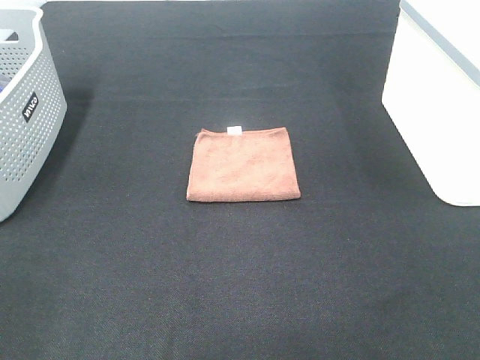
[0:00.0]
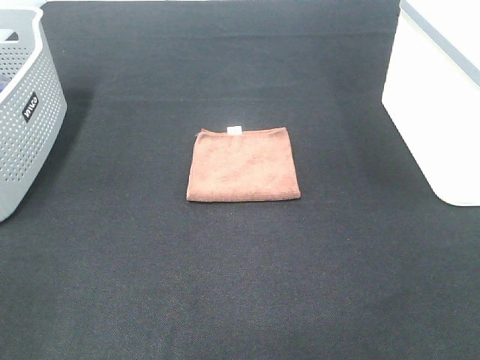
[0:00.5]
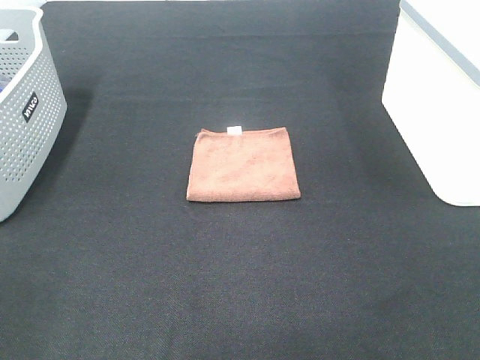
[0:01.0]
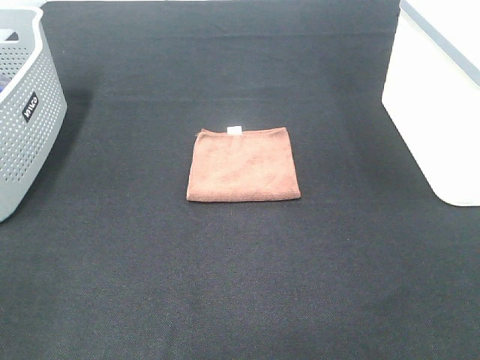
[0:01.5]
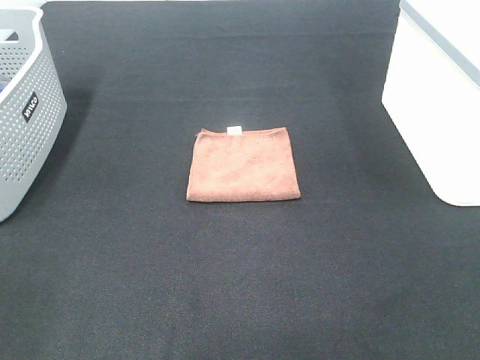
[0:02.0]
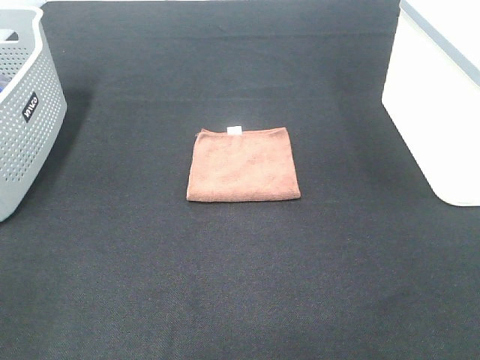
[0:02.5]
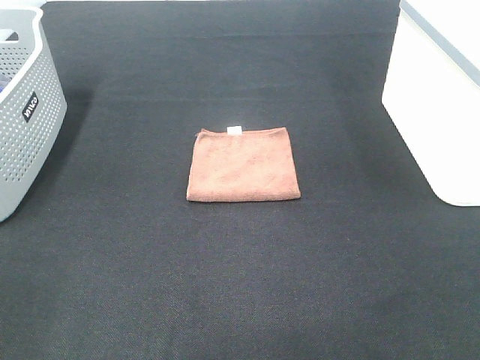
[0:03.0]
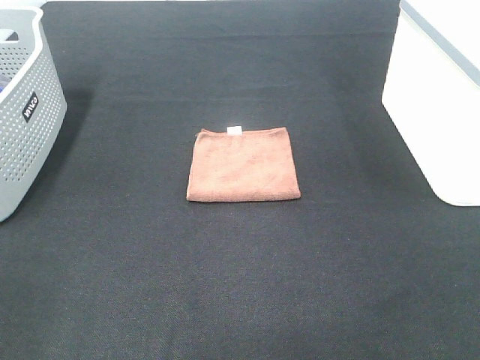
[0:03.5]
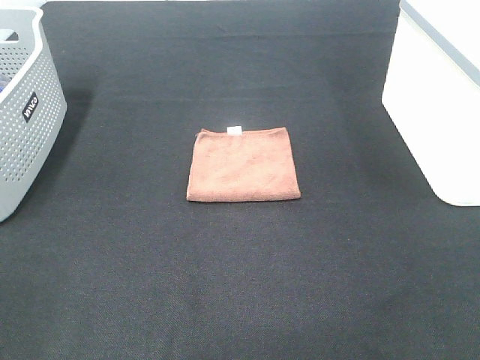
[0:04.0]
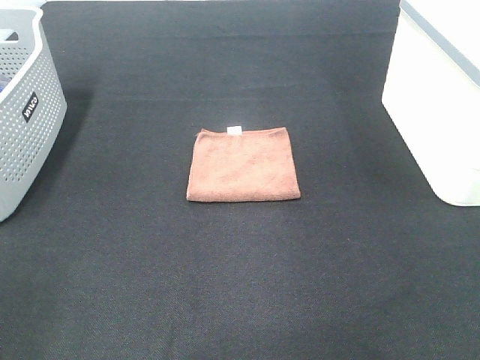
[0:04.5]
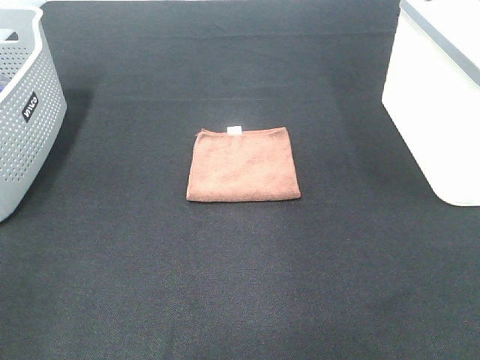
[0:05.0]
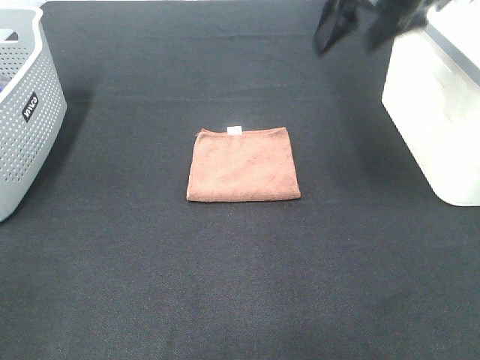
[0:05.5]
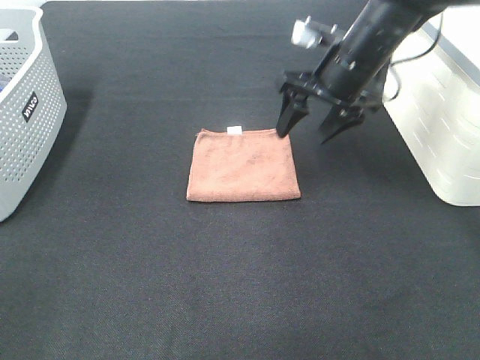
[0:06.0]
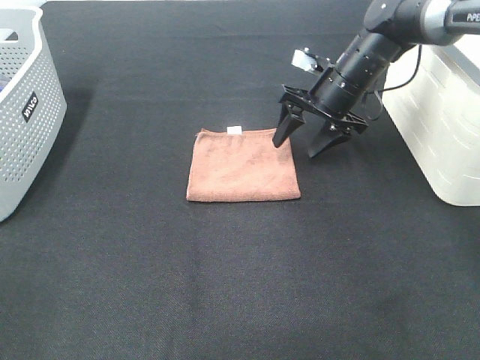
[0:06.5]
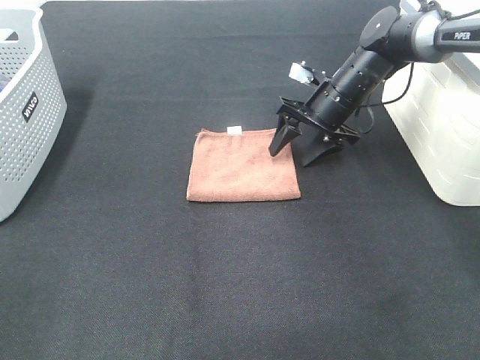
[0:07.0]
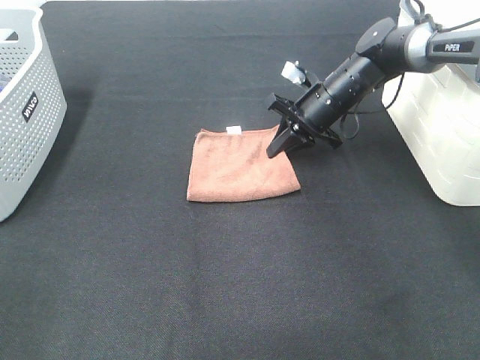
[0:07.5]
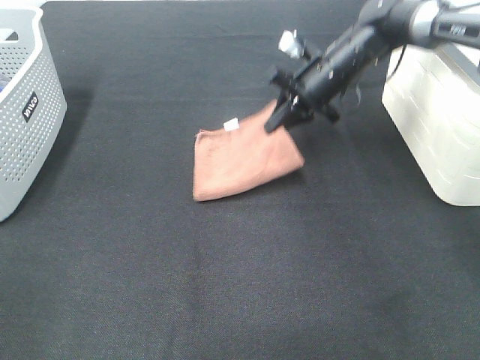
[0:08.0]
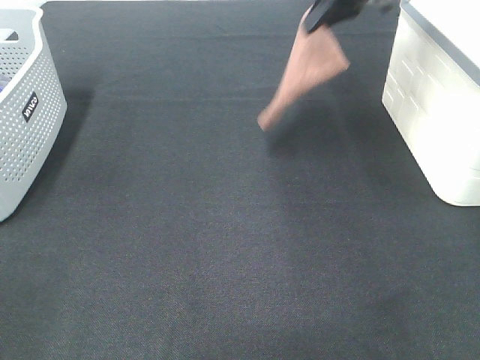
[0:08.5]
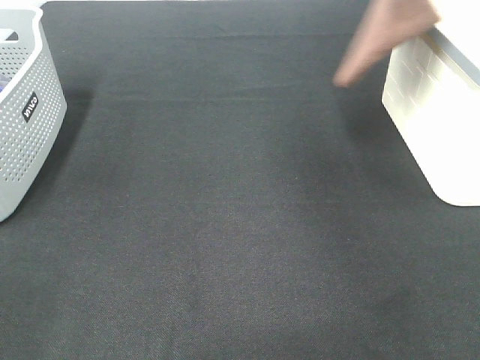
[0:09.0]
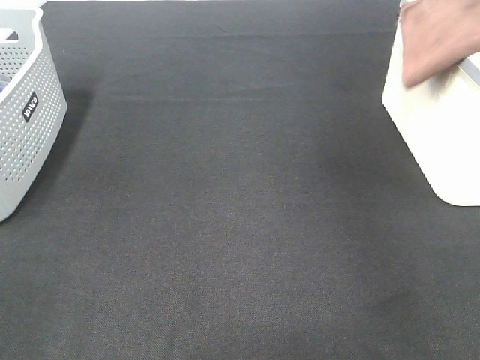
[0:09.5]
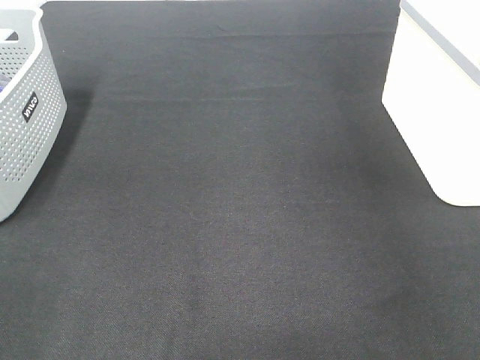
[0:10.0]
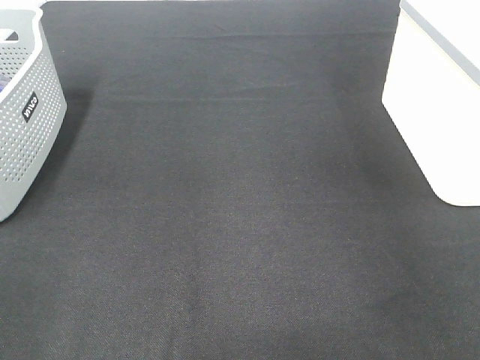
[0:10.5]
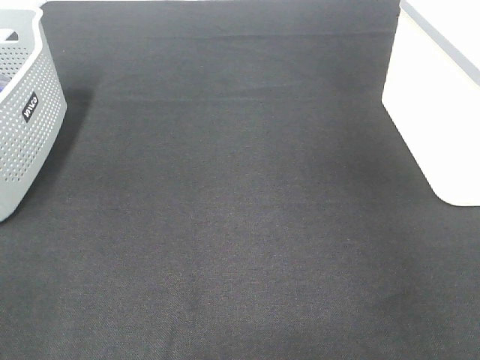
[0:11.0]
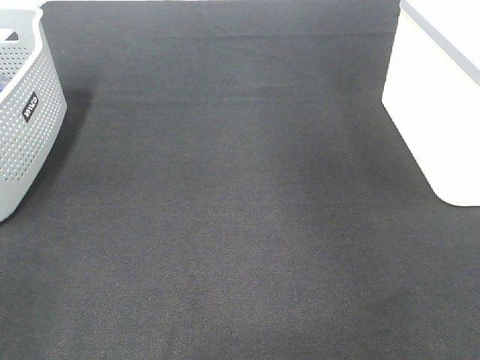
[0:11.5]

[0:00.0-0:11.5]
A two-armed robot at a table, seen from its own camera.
Step, 0:00.0 to 0:07.5: Right hand: grab the folded brown towel.
Step, 0:08.0 to 0:10.5: Right hand: place the brown towel in right basket.
0:00.0 to 0:02.0: Both grippers stay about where they are.
0:04.0 to 0:06.0: The right gripper moves forward, some 40 cm.
0:06.0 to 0:07.5: The right gripper is displaced downward and forward by some 10 cm, and closes its fingers.
0:07.5 to 0:09.5: The right gripper moves upward and to the right, some 35 cm.
0:09.5 to 0:11.5: The right gripper heads backward and upward, covering about 10 cm, and opens up.

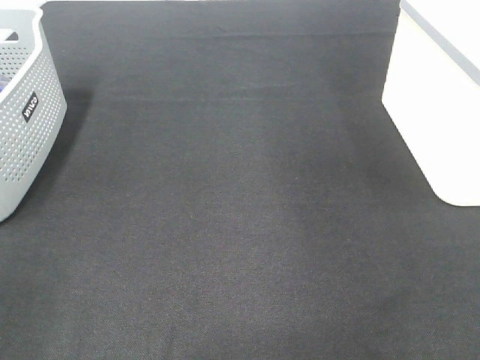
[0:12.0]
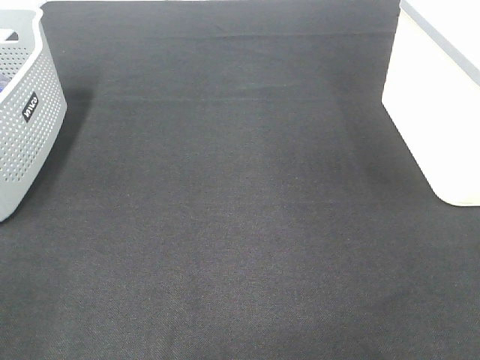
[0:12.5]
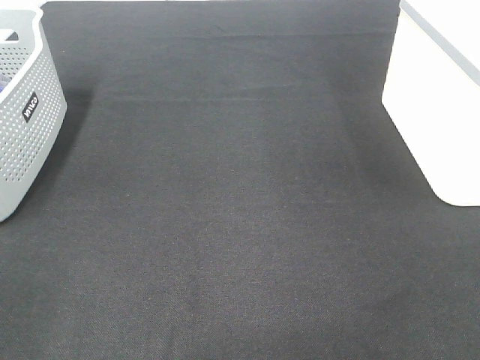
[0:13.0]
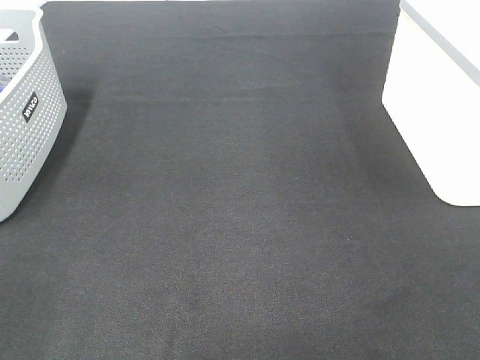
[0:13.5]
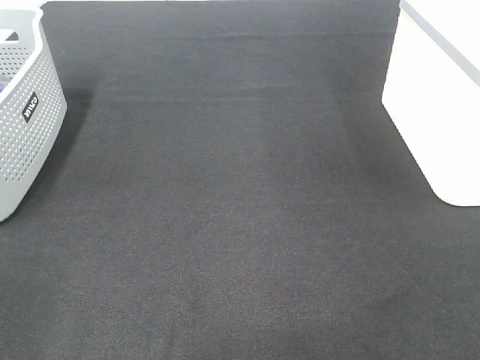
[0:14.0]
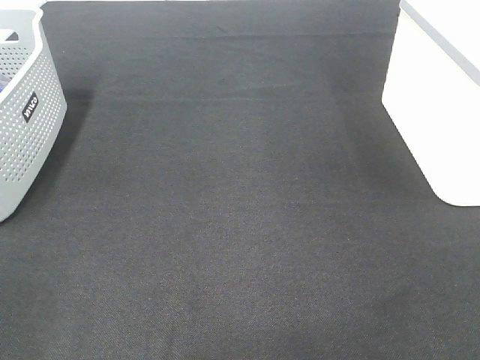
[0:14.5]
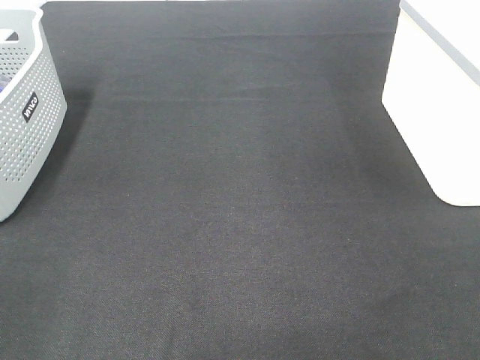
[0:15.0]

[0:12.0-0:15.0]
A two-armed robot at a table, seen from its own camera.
0:13.5 to 0:15.0: The two grippers keep their place.

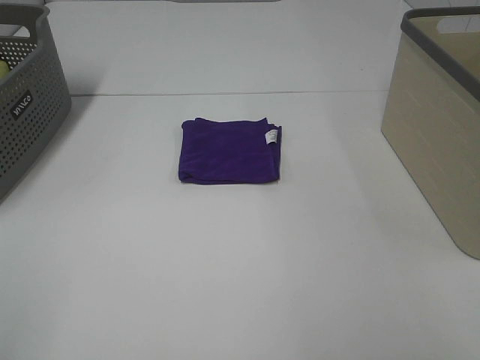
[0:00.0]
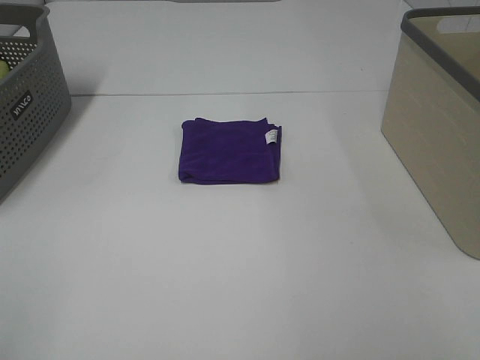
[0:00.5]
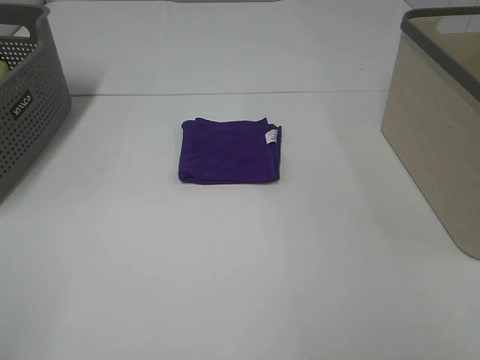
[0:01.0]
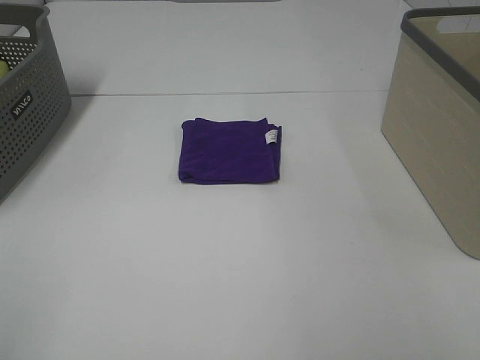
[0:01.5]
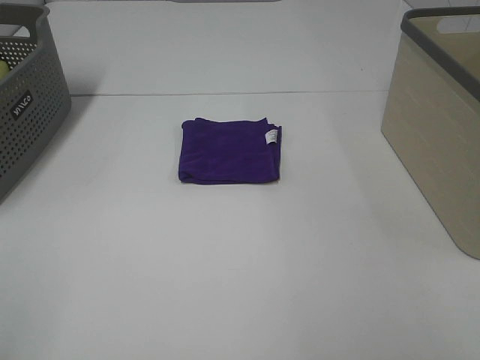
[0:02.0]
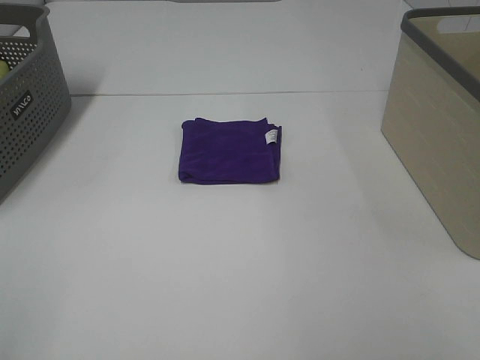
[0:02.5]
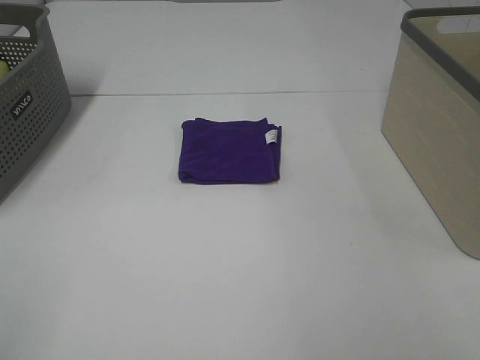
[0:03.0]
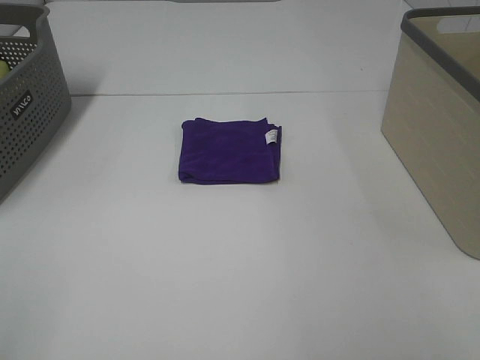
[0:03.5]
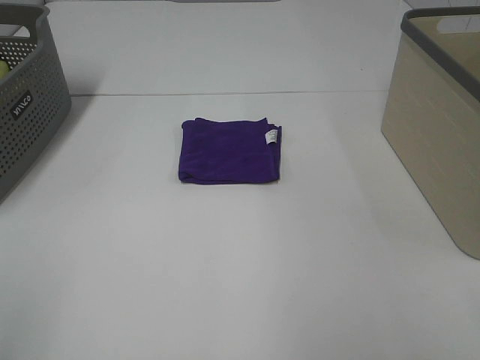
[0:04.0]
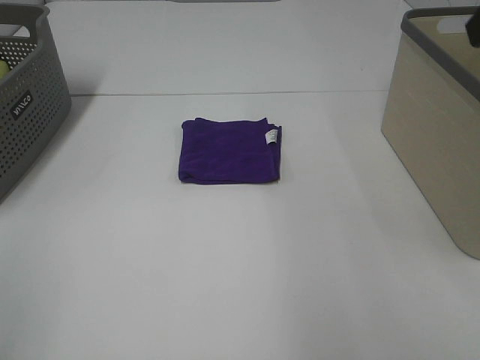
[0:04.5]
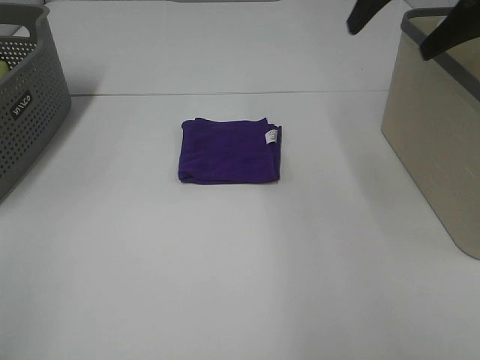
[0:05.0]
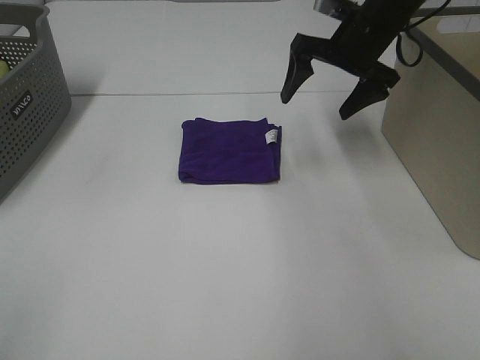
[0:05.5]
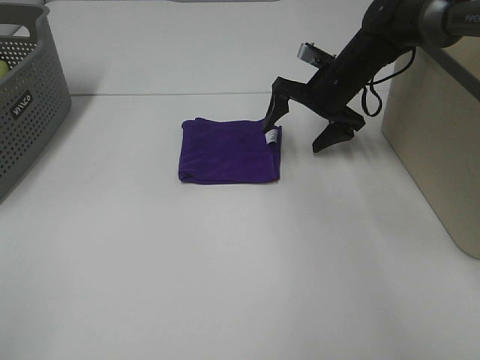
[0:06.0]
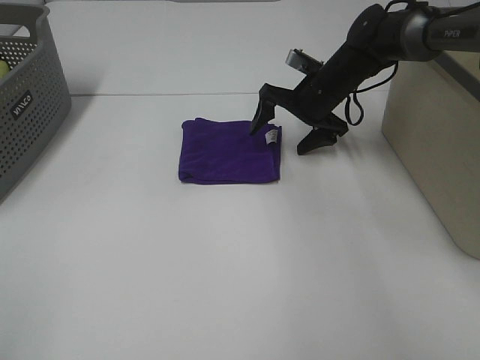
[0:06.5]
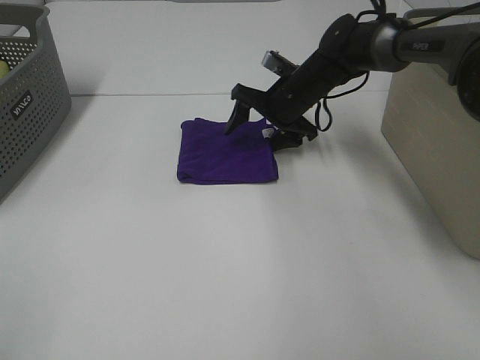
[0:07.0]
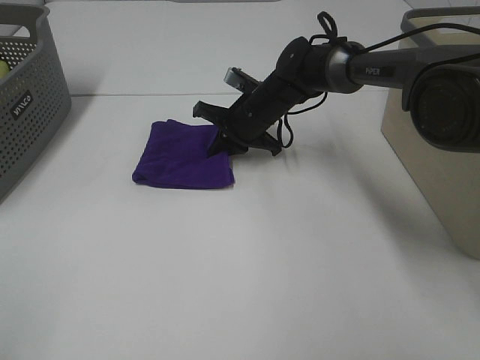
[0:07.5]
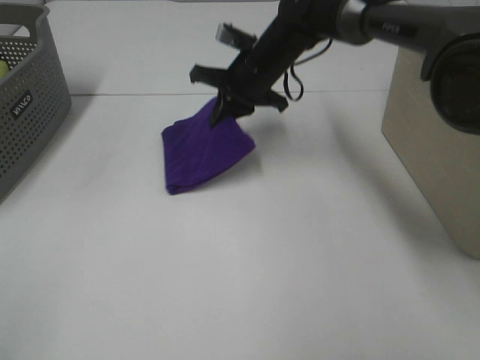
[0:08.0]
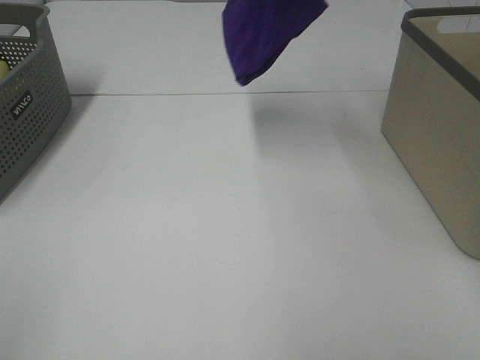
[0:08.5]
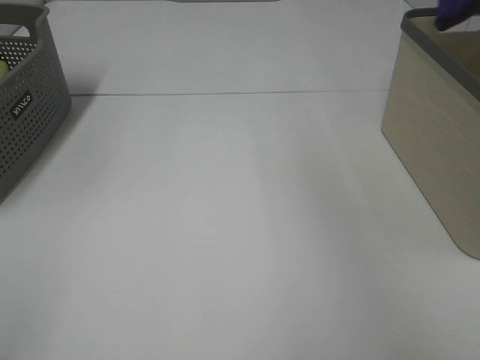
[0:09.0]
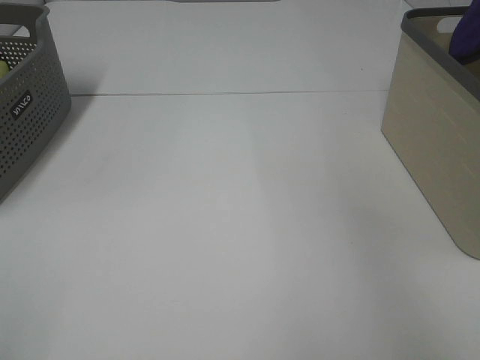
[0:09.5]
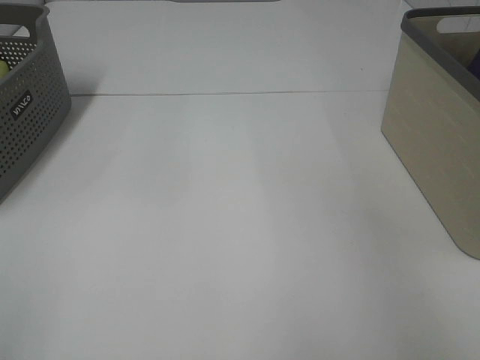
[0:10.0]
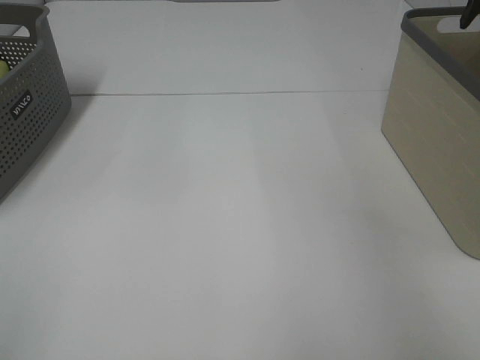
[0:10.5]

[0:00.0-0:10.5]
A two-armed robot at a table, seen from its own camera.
Step, 0:00.0 to 0:07.5: Right hand: grab the folded purple towel.
Step, 0:08.0 to 0:10.0: Right hand: place the purple towel in right basket.
0:00.0 to 0:02.0: Neither gripper changes place.
0:04.0 to 0:06.5: The right gripper moves forward and downward, about 50 cm.
0:06.5 to 0:08.5: The right gripper travels upward by roughly 25 cm, and closes.
0:08.5 to 0:10.5: The right gripper is displaced to the right by approximately 25 cm, and opens.

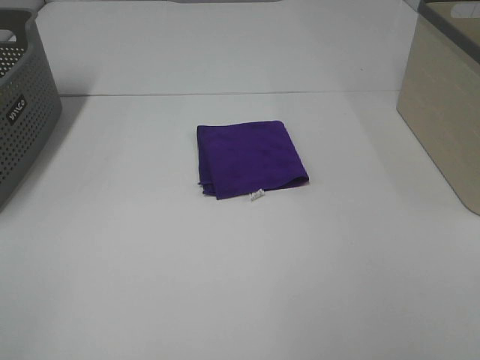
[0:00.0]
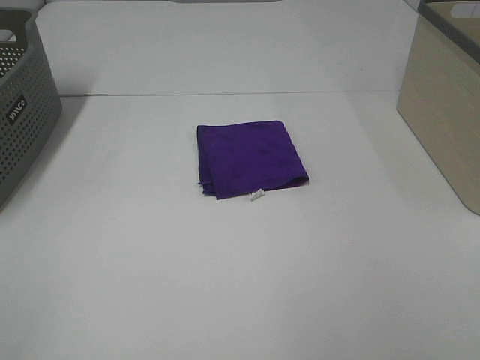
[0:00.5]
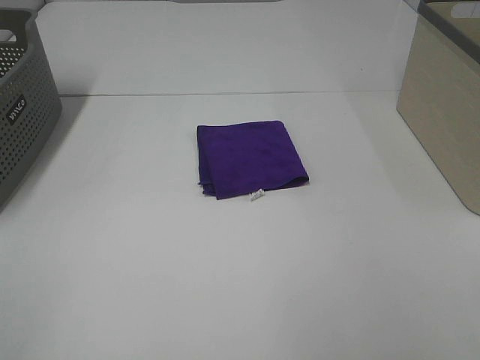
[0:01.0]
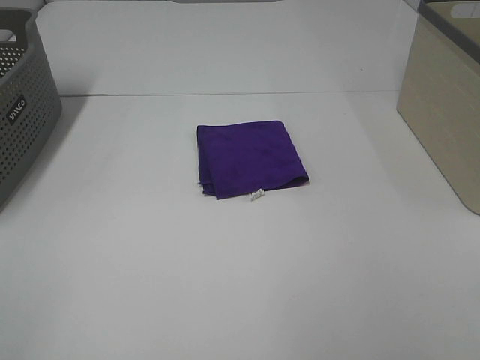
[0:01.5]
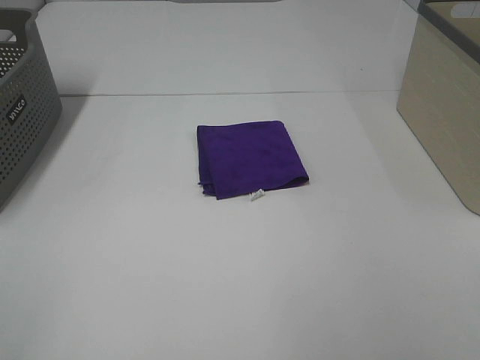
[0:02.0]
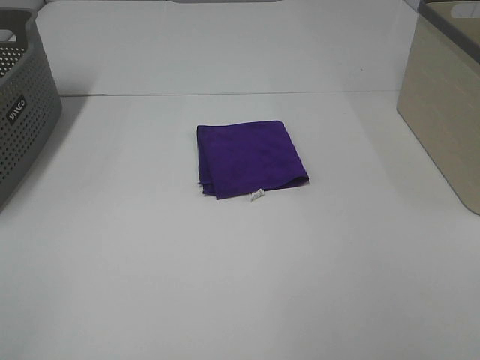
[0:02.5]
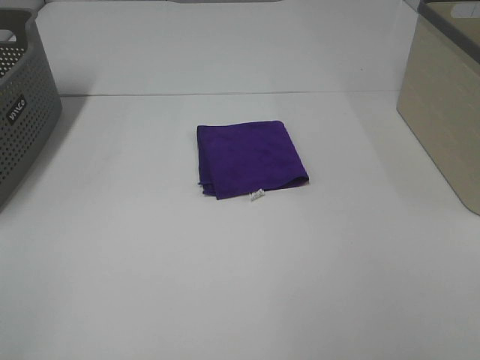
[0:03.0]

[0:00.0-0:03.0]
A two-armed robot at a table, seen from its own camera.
0:00.0 to 0:03.0: Both grippers stay about where they are.
